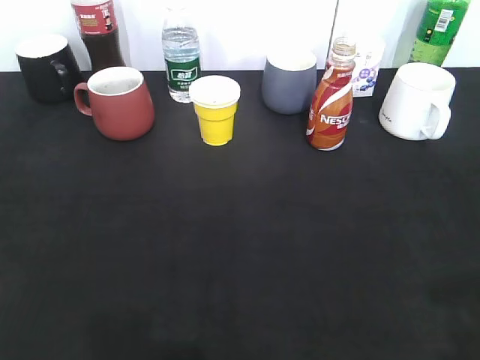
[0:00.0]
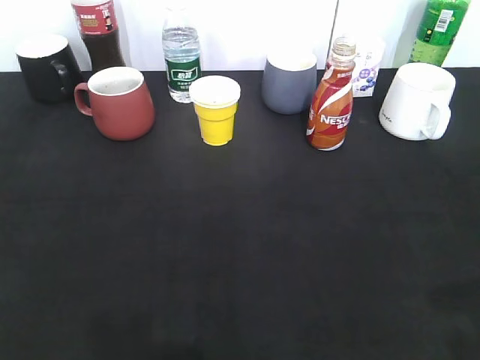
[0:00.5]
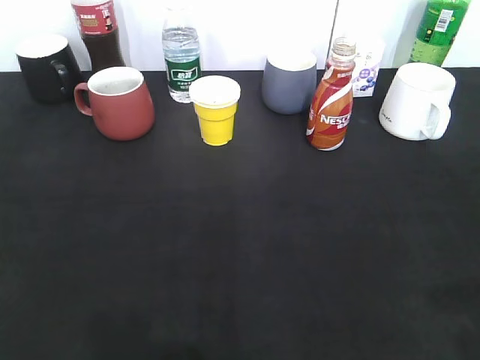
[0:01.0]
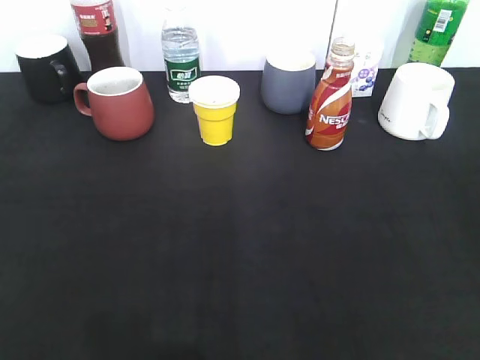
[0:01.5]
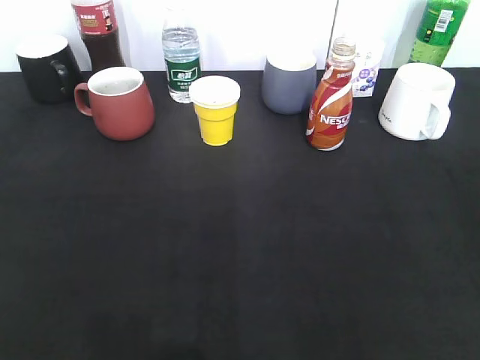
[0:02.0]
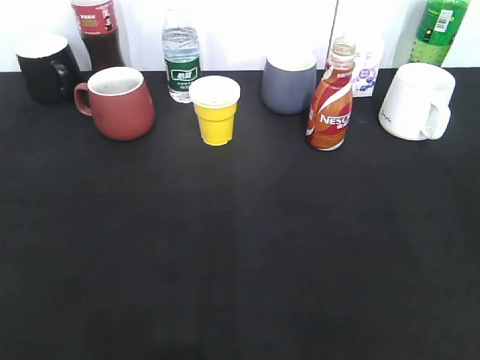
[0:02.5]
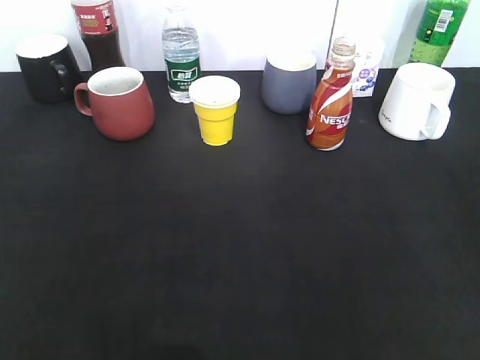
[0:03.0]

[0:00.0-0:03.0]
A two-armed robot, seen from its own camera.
0:00.0 to 0:01.5: The right gripper travels backward by approximately 5 cm, and closes.
0:01.5 to 0:03.0: Both grippers stay about where they are.

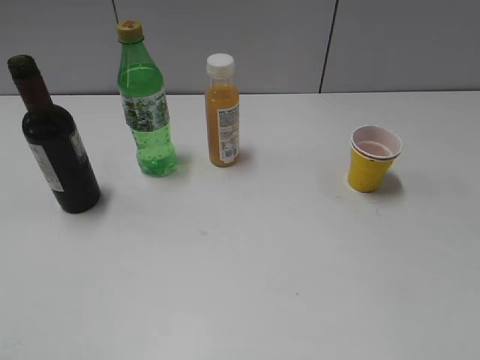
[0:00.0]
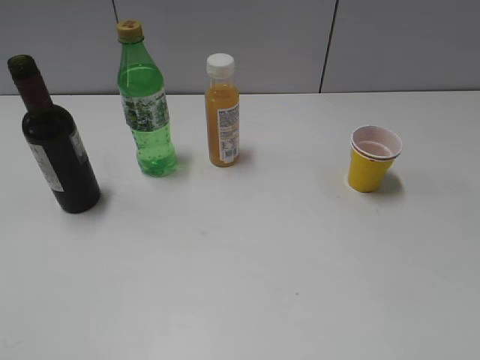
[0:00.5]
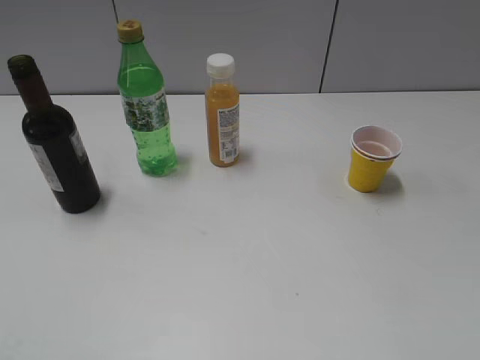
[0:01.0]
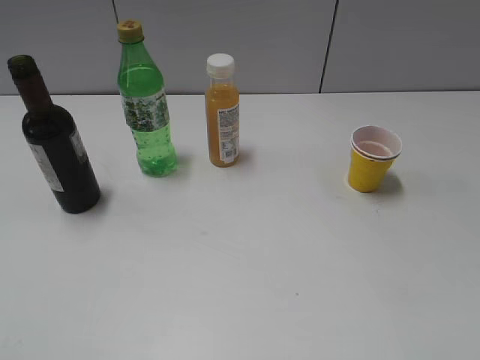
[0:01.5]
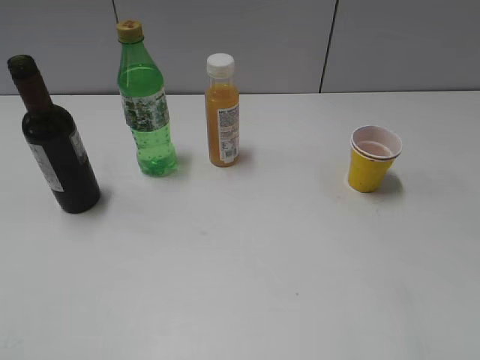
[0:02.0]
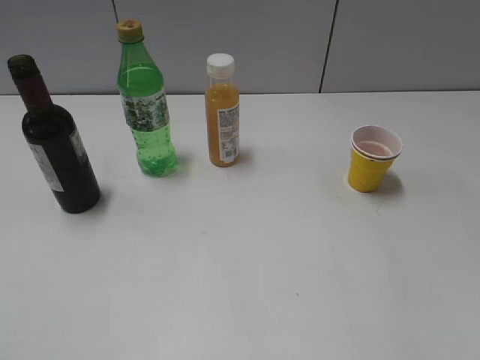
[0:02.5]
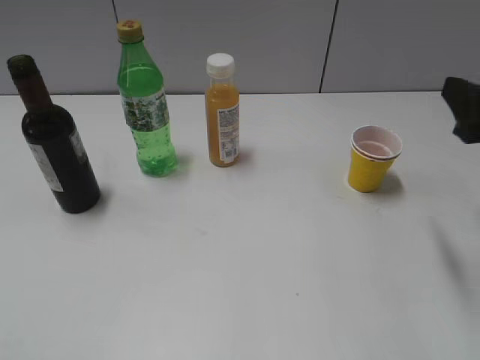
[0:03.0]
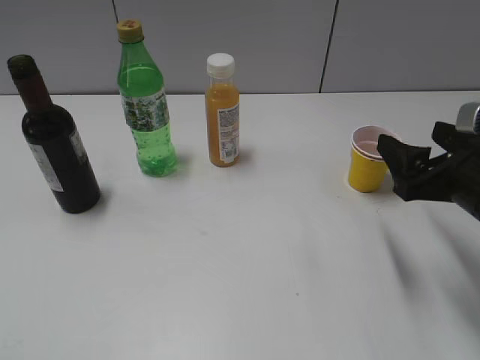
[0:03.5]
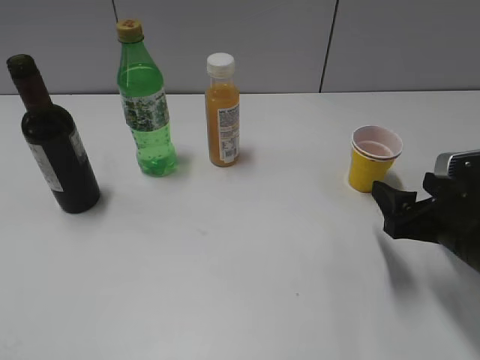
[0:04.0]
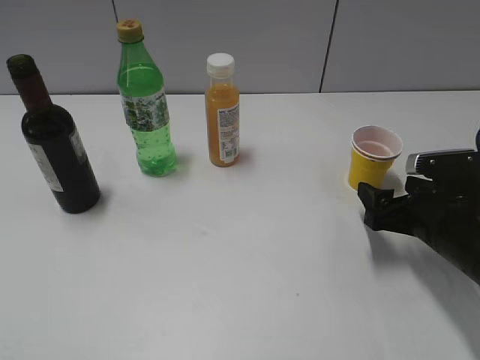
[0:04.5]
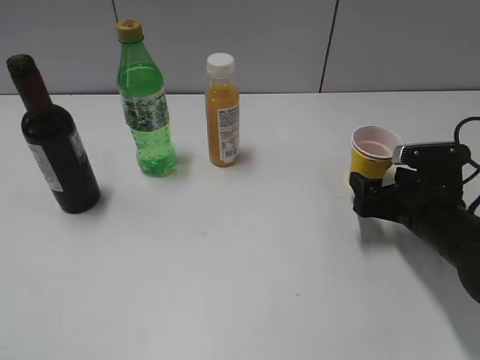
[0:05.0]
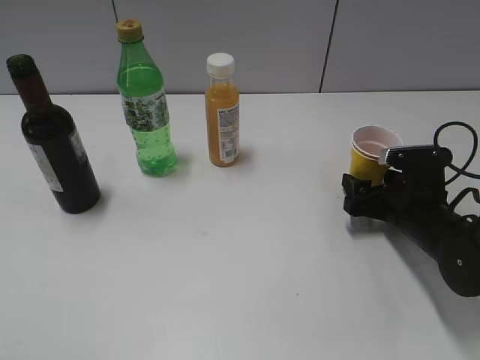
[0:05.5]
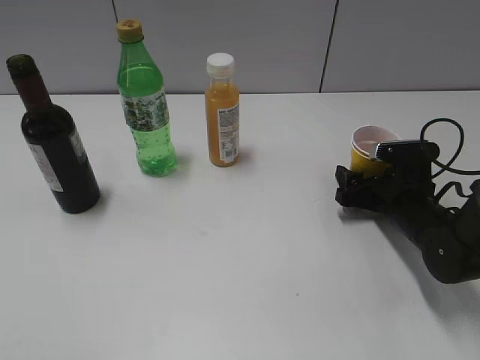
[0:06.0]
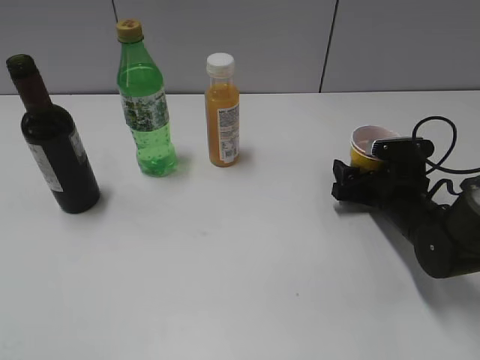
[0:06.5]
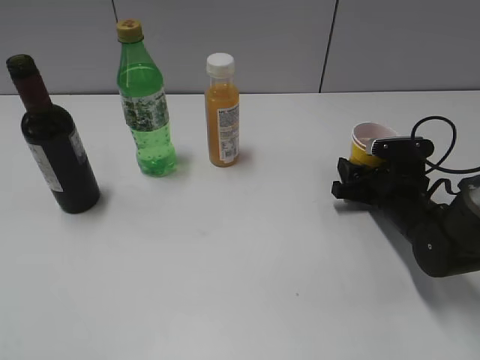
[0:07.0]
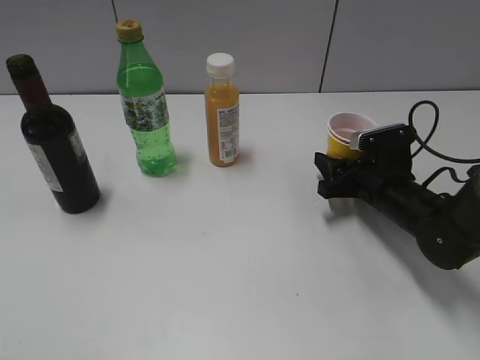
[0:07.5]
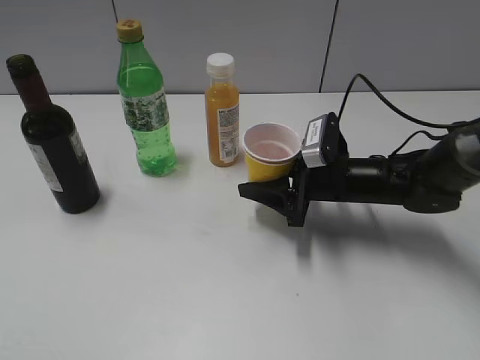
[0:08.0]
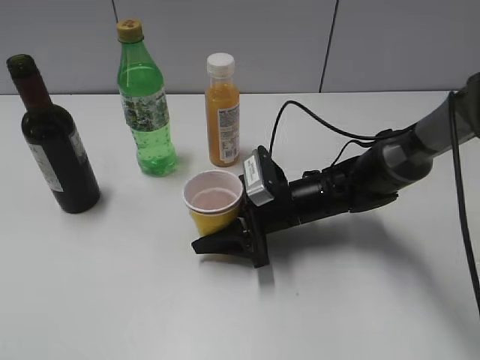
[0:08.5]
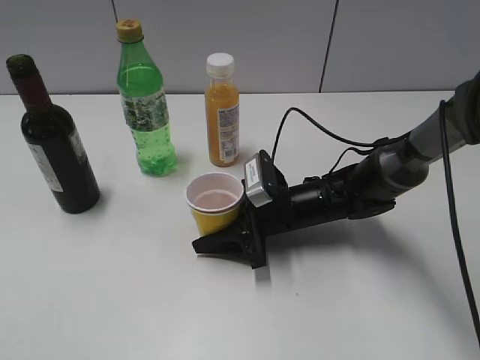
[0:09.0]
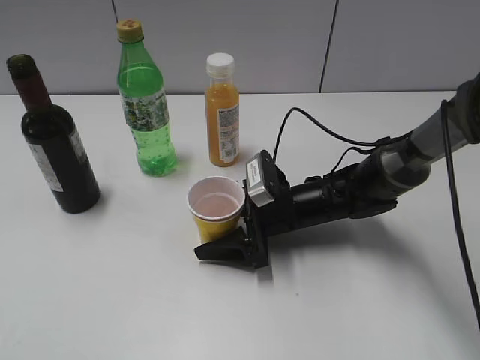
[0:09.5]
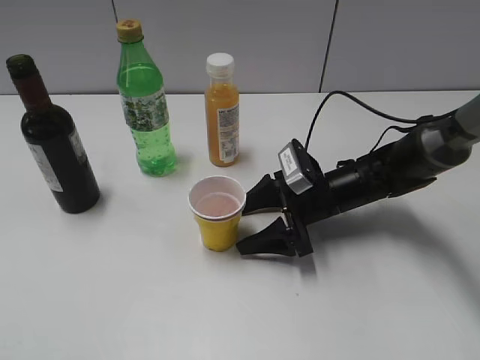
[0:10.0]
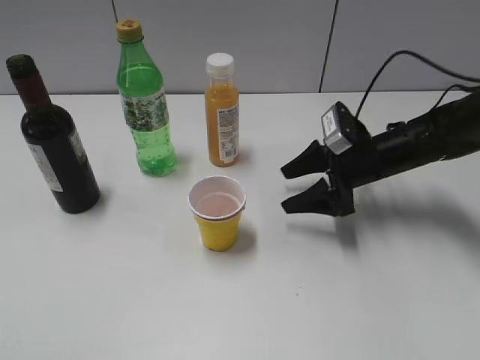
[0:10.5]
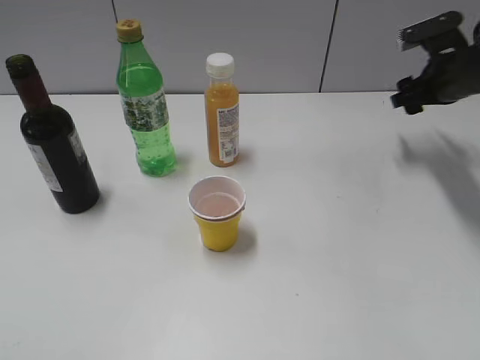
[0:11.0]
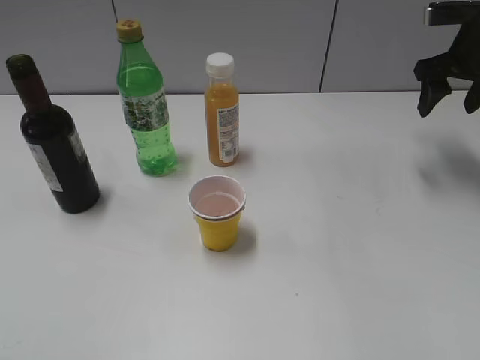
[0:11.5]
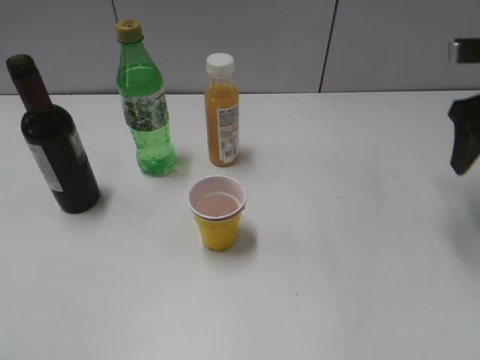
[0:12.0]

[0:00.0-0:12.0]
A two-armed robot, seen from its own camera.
Step, 0:01.0 to 0:06.5: Grasp the yellow paper cup with right gripper.
Step, 0:07.0 to 0:09.5: Place the yellow paper cup on the table with right gripper.
0:02.0 to 0:04.0: The right gripper is displaced downward and forward by some 25 cm.
0:04.0 to 0:06.0: The right gripper moves forward and downward, about 15 cm.
0:06.0 to 0:08.0: The right gripper goes some 10 cm to the left, and closes.
0:08.0 to 0:10.0: The right gripper opens its fingers.
0:10.0 to 0:12.0: The right gripper moves upward and to the right, some 25 cm.

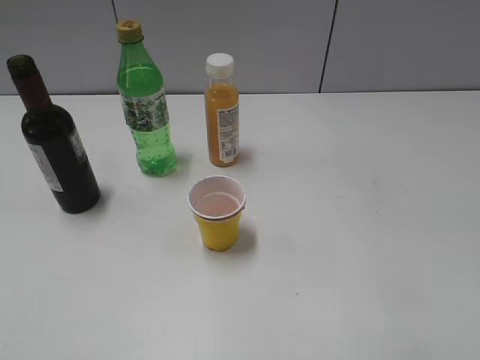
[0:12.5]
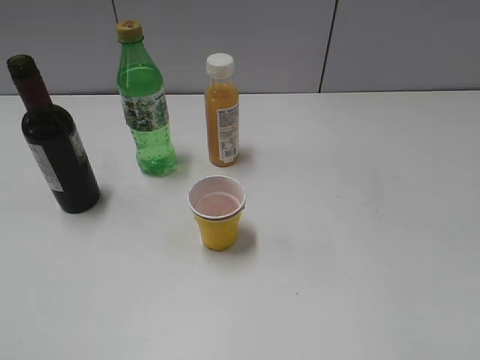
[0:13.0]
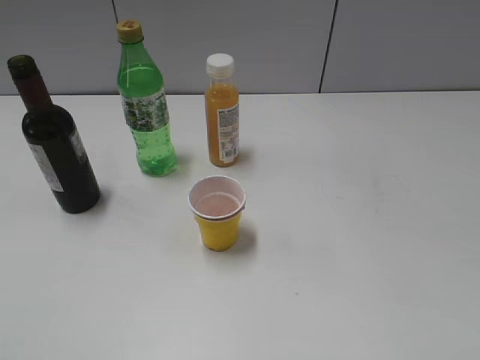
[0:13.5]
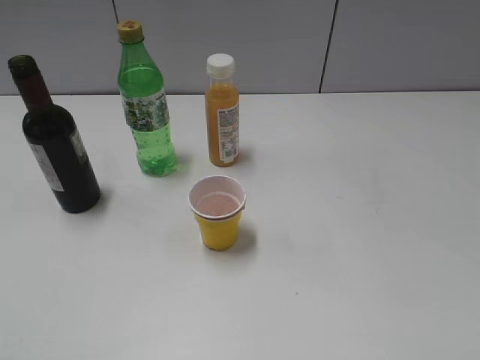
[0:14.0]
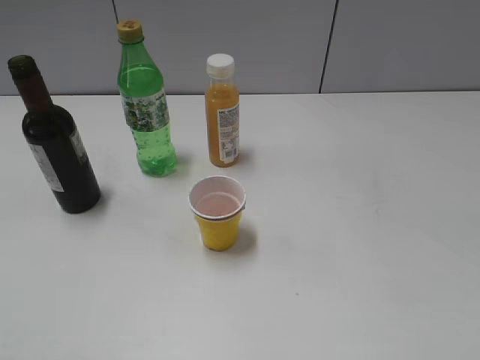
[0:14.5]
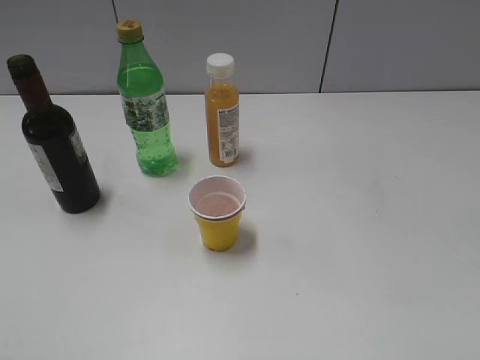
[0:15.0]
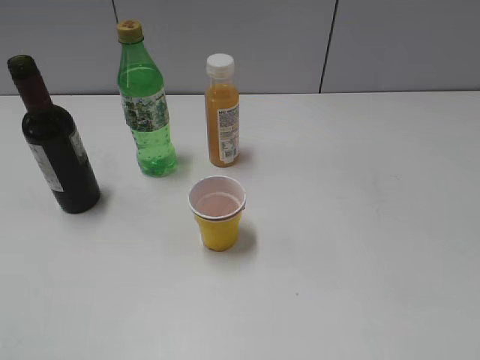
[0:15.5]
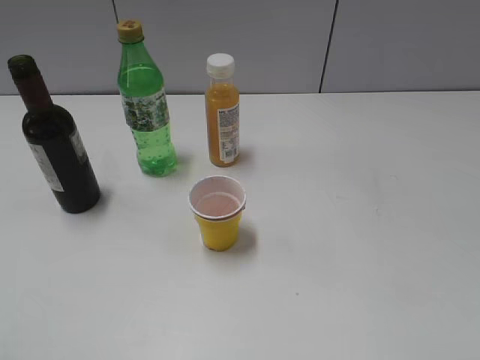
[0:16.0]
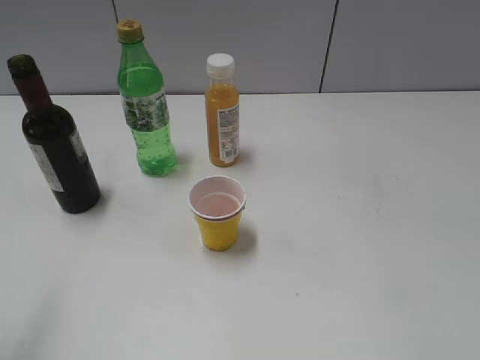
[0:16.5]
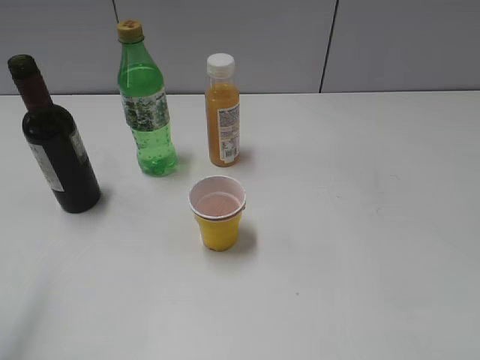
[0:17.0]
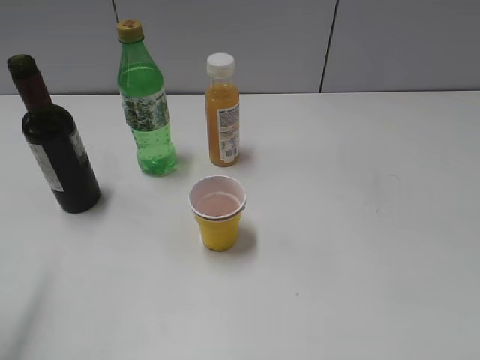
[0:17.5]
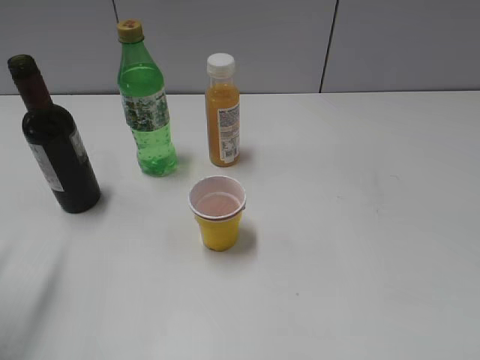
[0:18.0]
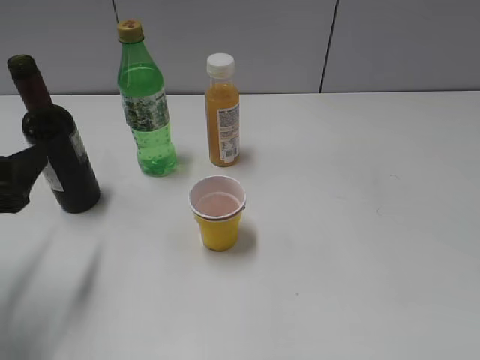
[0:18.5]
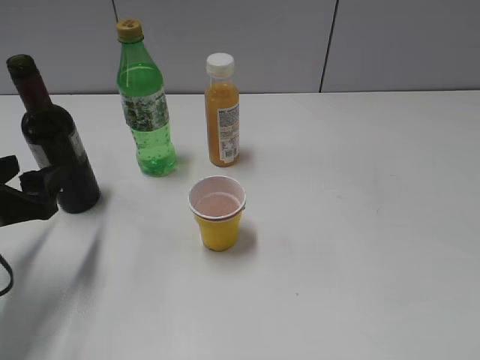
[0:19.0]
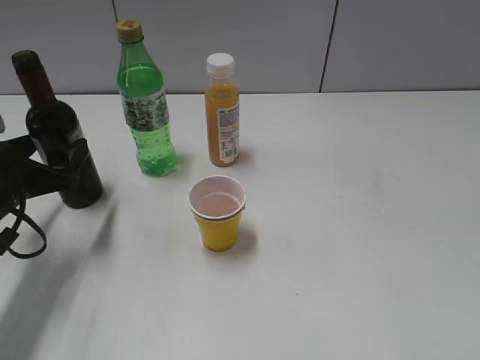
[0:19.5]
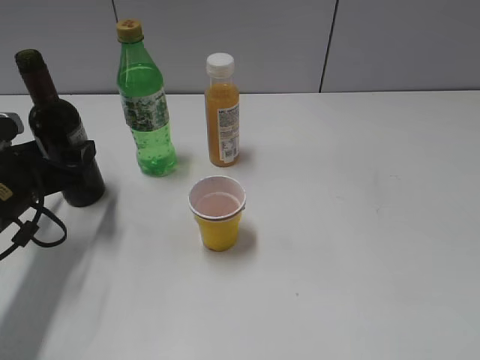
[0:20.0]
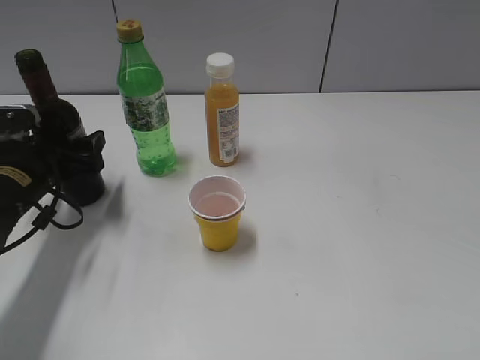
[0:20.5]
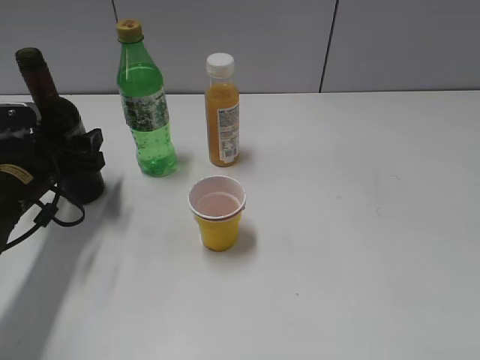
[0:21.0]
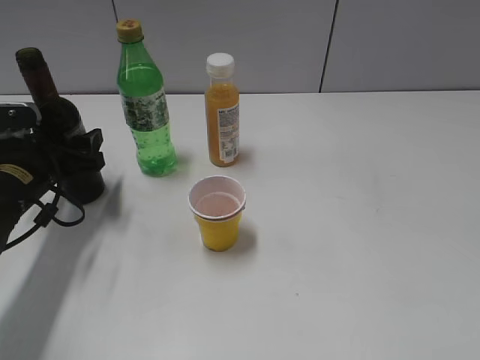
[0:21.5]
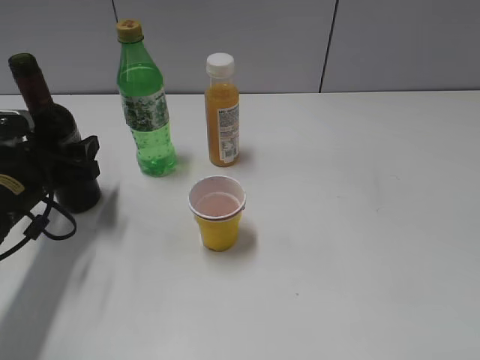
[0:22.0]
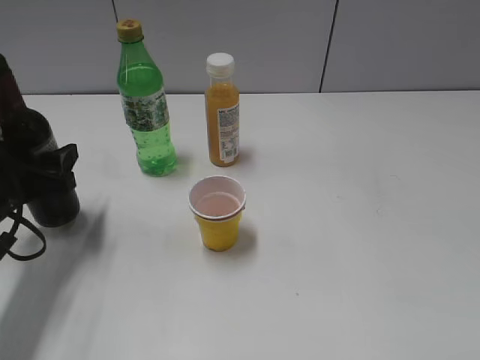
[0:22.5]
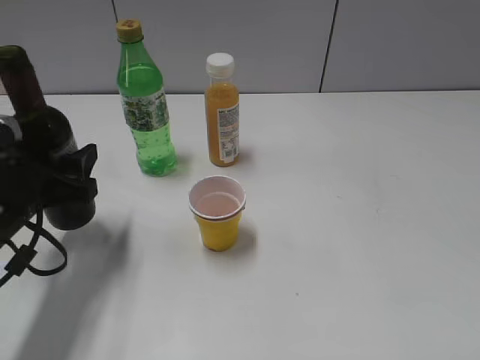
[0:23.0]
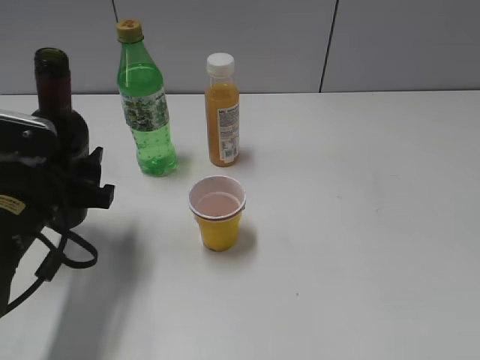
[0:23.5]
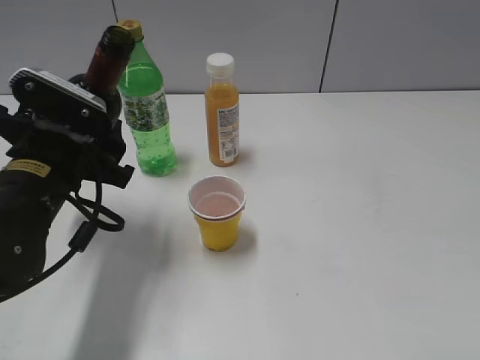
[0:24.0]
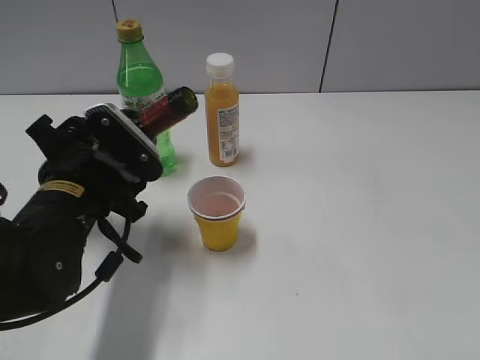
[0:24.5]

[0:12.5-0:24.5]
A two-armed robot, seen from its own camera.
Step, 0:12.5 to 0:22.0: Grasp the bottle with red wine with left gripper.
0:16.5 to 0:18.5: The left gripper travels downward and forward by approximately 20 cm.
0:18.5 to 0:20.5: The left gripper heads forward and downward, covering some 15 cm.
0:20.5 to 0:22.5: The left gripper goes some 5 cm backward.
0:22.5 to 0:24.5: The left gripper moves to the right, some 10 cm.
